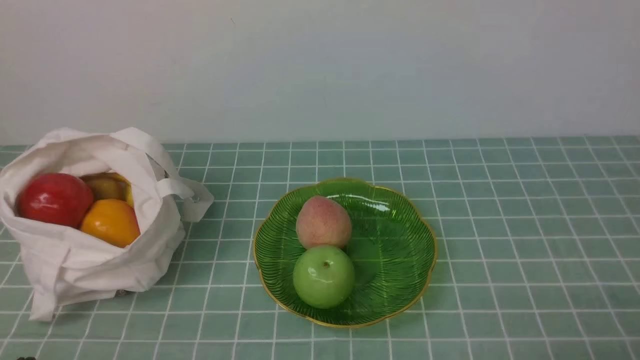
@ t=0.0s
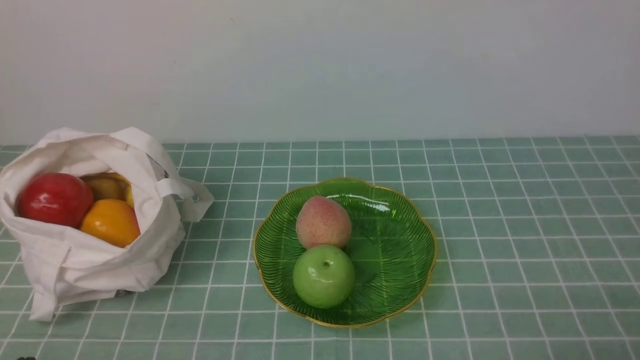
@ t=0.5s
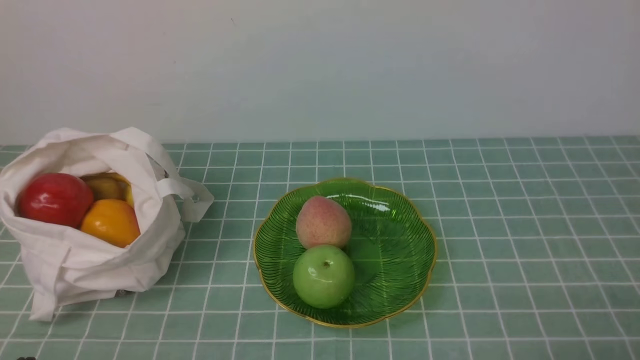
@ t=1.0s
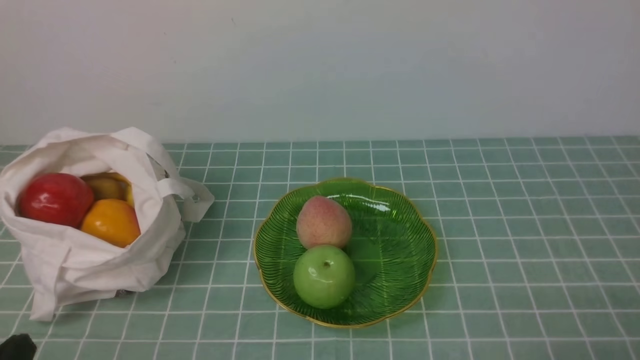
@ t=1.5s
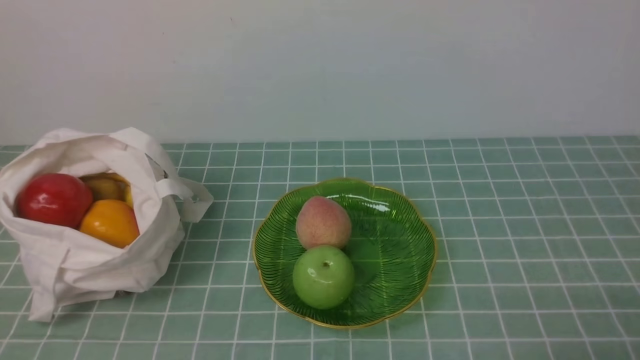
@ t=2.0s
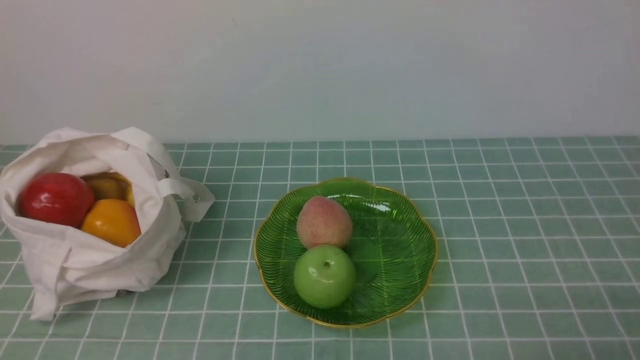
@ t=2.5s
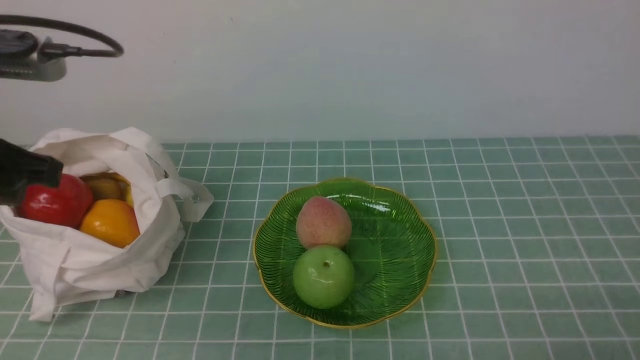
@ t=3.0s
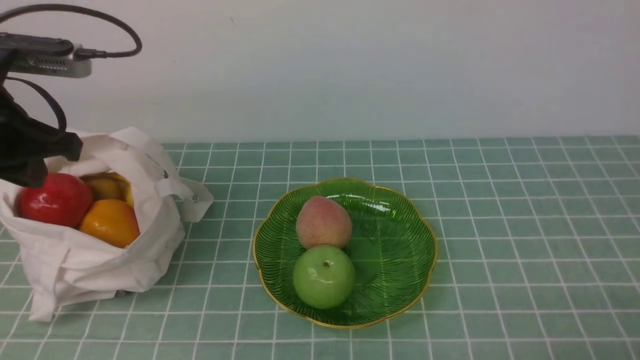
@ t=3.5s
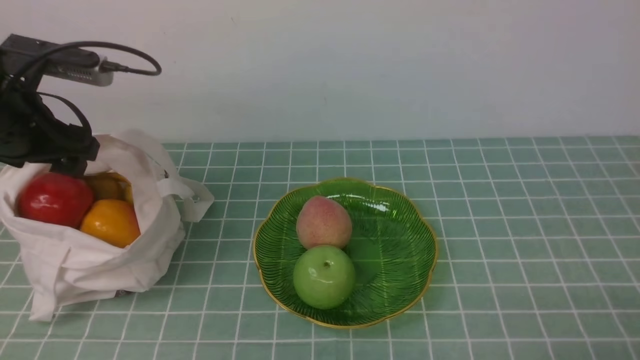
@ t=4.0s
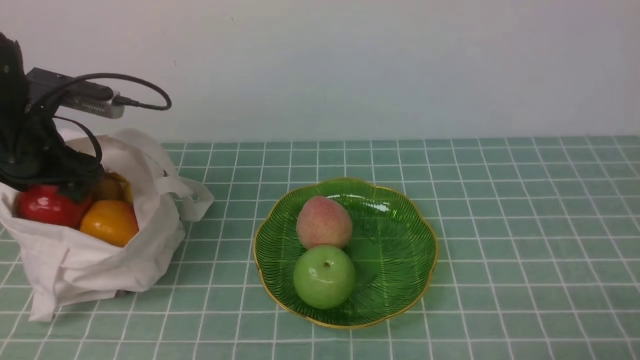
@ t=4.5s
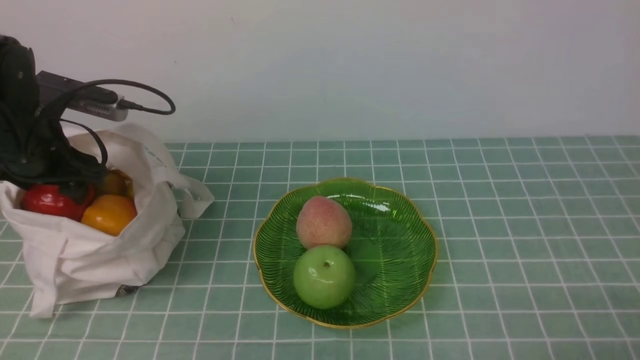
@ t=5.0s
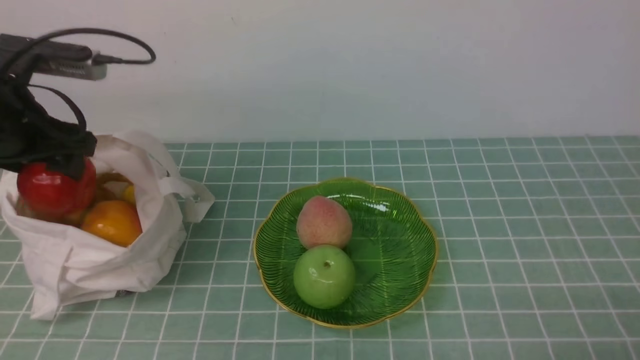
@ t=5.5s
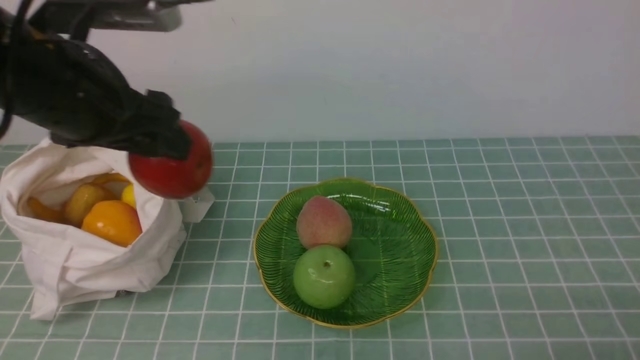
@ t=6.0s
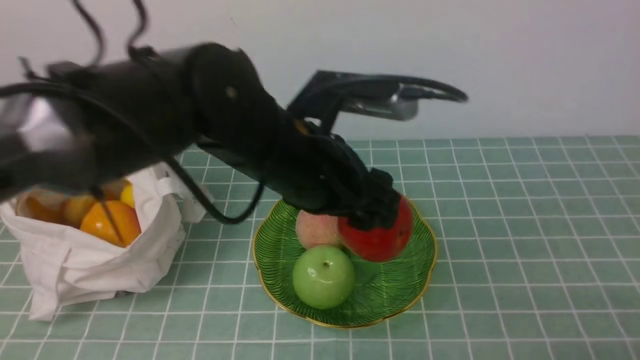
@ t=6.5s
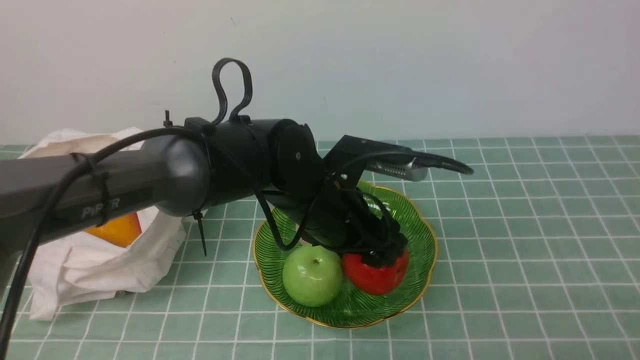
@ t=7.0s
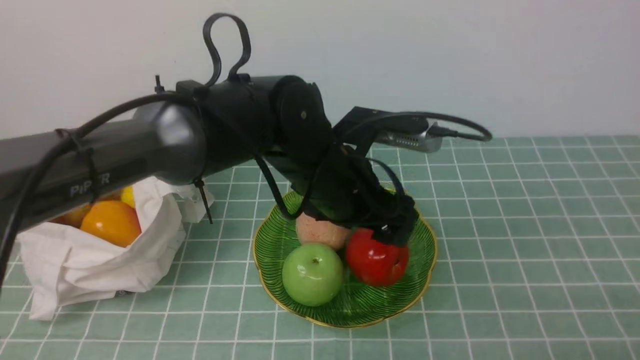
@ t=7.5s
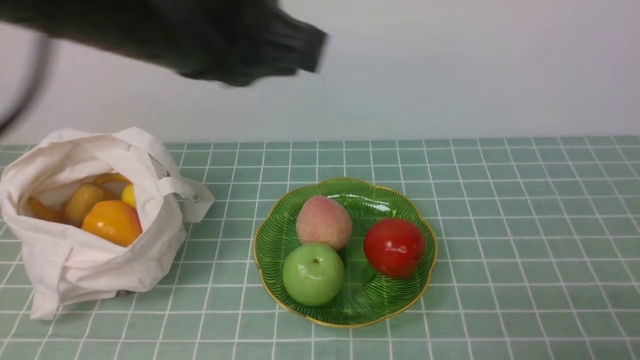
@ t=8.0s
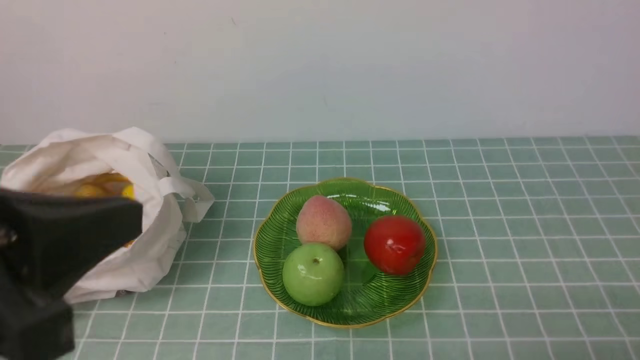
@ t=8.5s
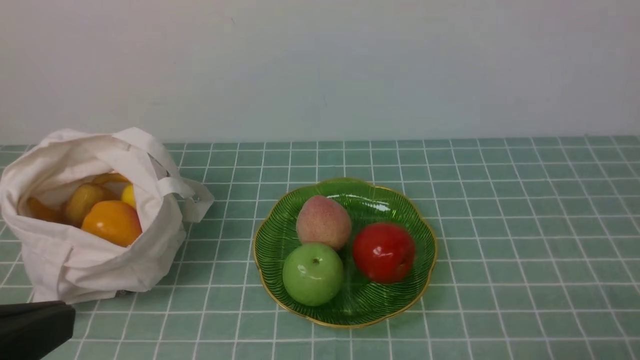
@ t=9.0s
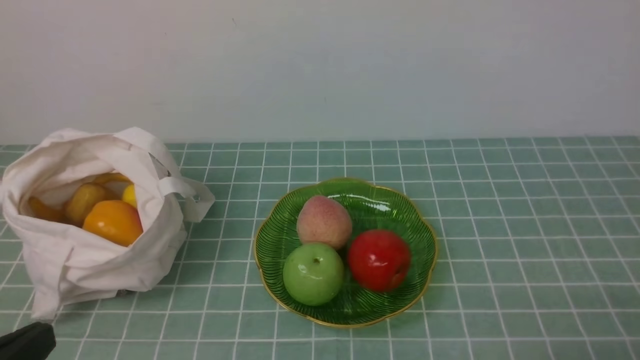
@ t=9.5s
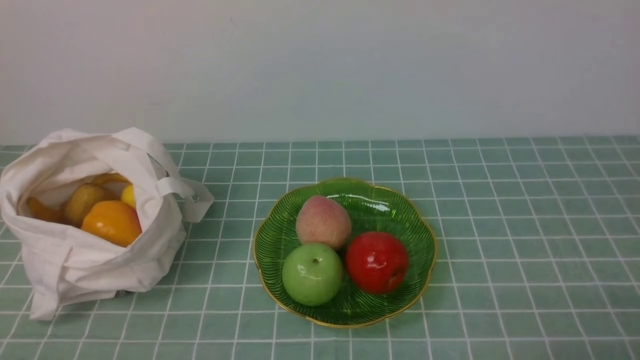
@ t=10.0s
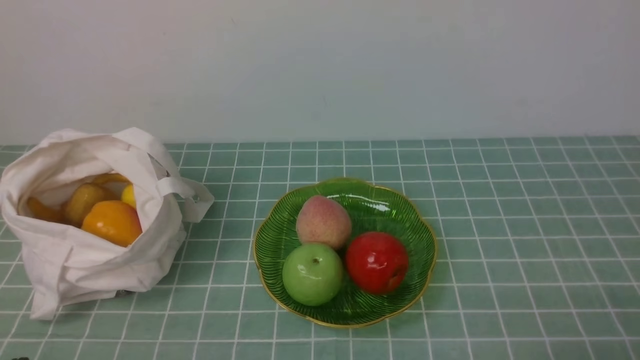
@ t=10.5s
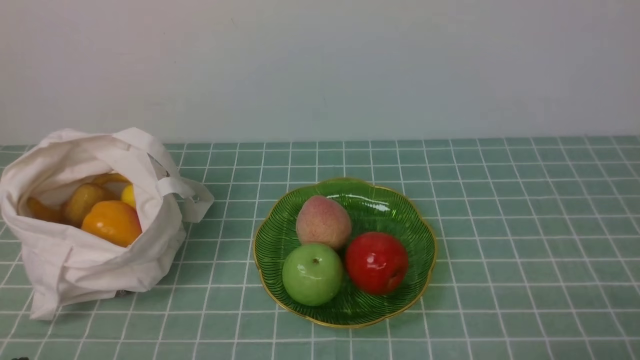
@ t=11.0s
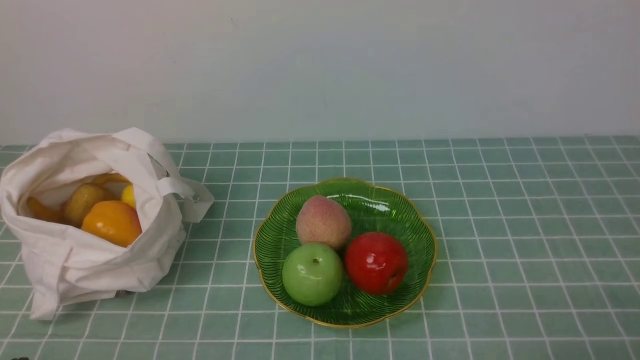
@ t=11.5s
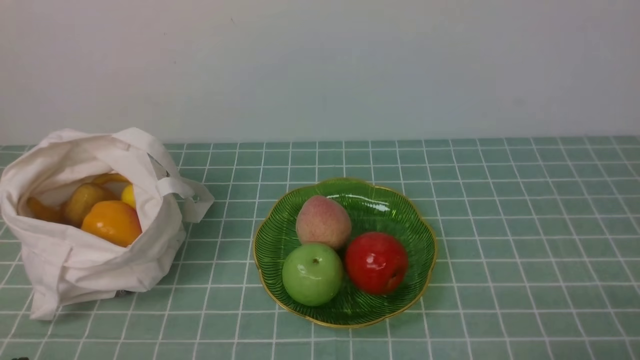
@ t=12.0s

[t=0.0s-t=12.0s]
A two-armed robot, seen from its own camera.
Step, t=0.0s to t=5.5s: use the left arm to grab an apple from the bag.
Step, t=6.0s to t=7.0s: use the left arm to put the apple into the empty plate on the right.
t=2.0s to t=4.0s: The left gripper is displaced forward by approximately 30 cm, and opens.
t=4.0s to t=6.0s: The left gripper heads to the right, covering some 5 cm.
t=6.0s to t=8.0s: The left gripper moves to the right, some 15 cm, and closes its fingers.
t=8.0s to t=10.0s: The left gripper travels downward, backward and to the left by roughly 35 cm.
t=10.0s to t=12.0s: Neither gripper changes place.
